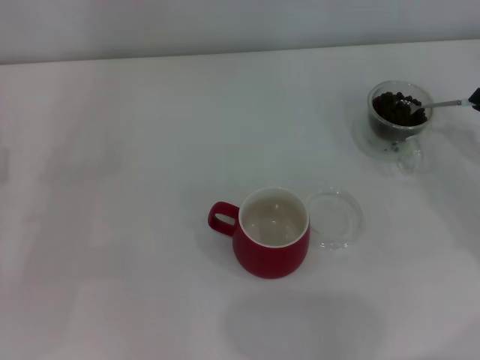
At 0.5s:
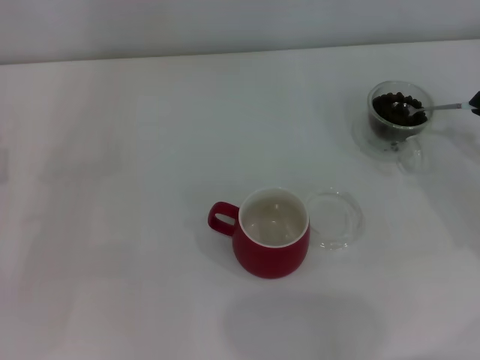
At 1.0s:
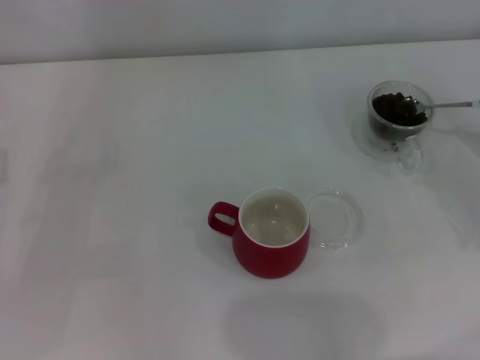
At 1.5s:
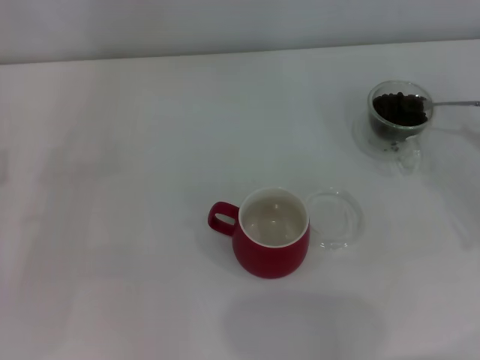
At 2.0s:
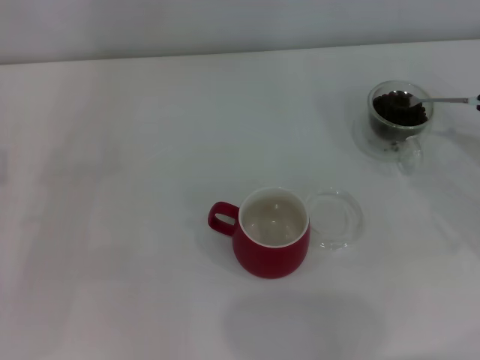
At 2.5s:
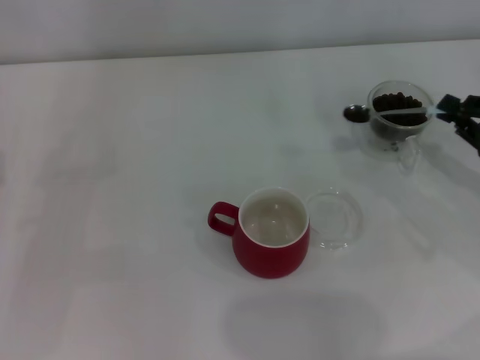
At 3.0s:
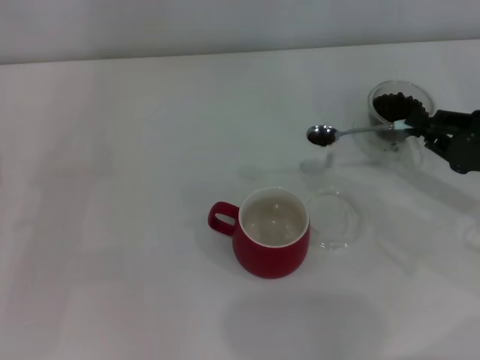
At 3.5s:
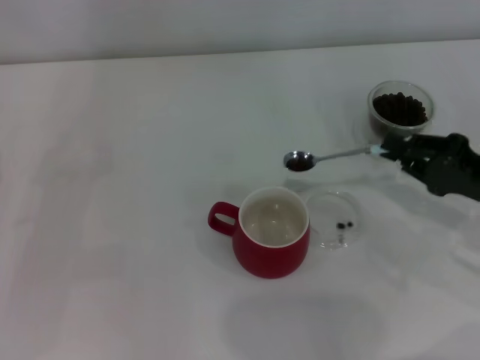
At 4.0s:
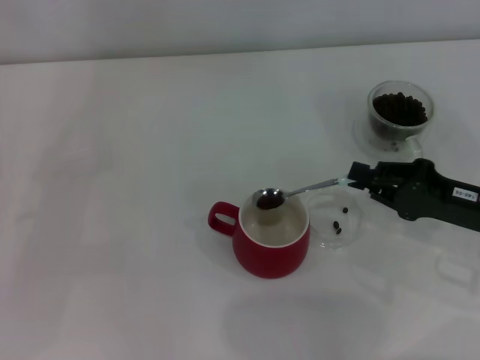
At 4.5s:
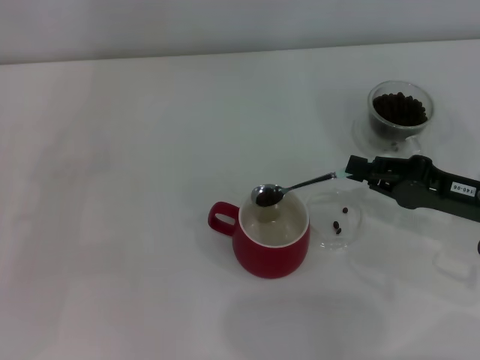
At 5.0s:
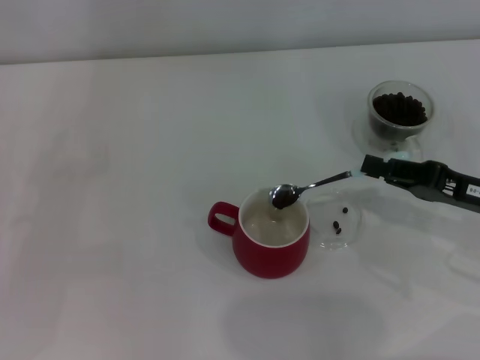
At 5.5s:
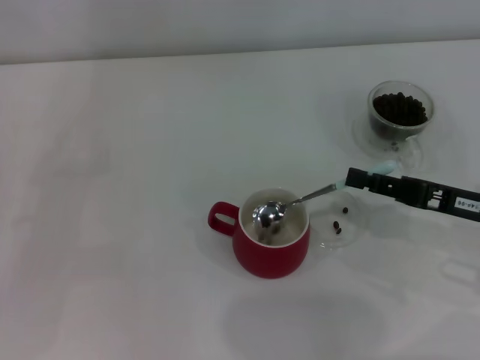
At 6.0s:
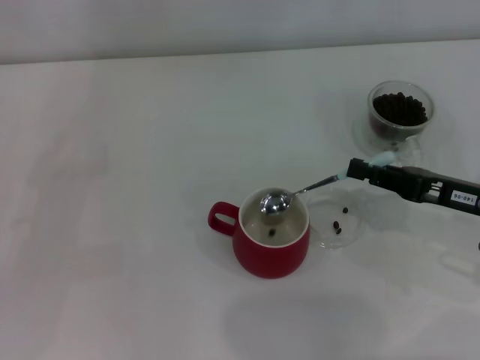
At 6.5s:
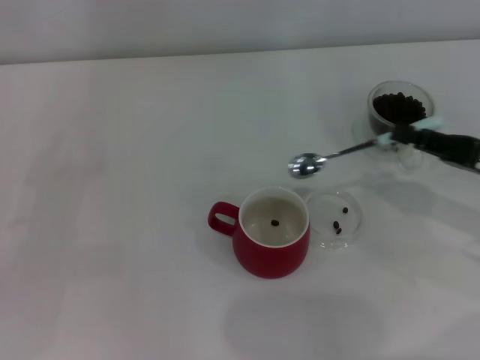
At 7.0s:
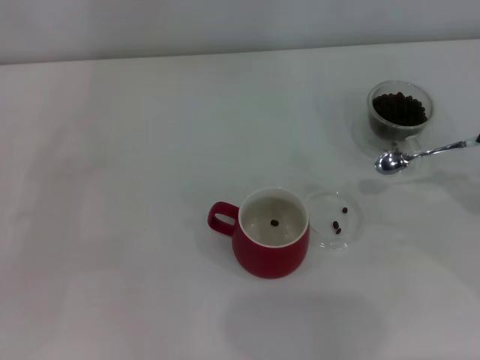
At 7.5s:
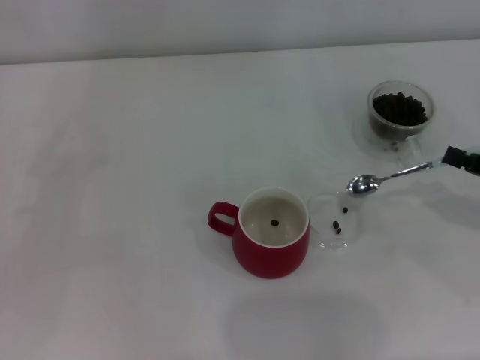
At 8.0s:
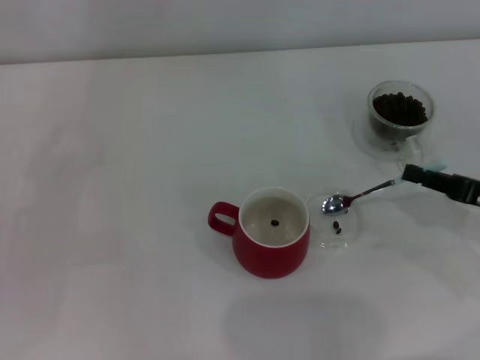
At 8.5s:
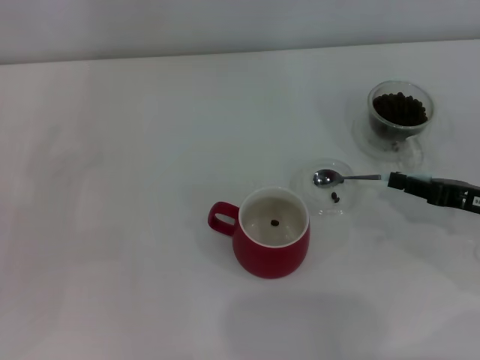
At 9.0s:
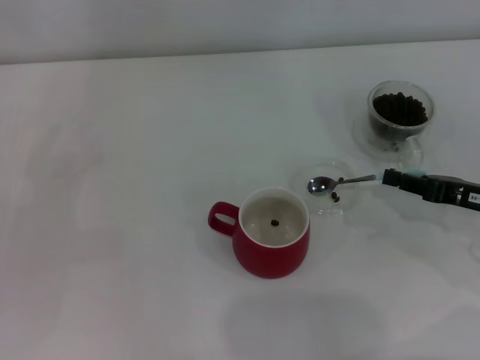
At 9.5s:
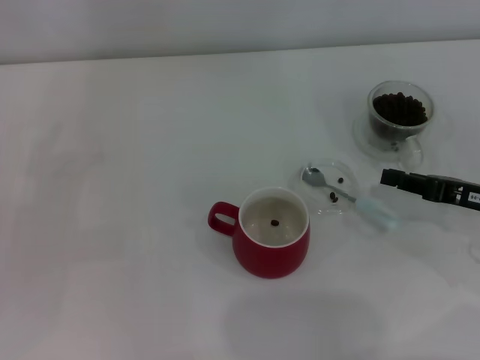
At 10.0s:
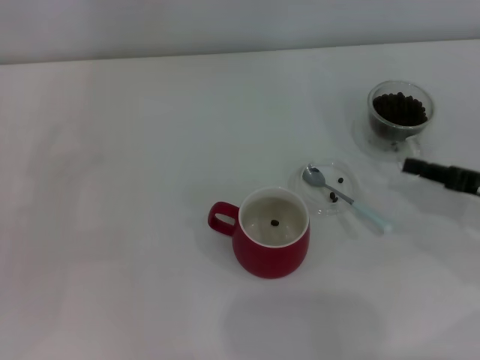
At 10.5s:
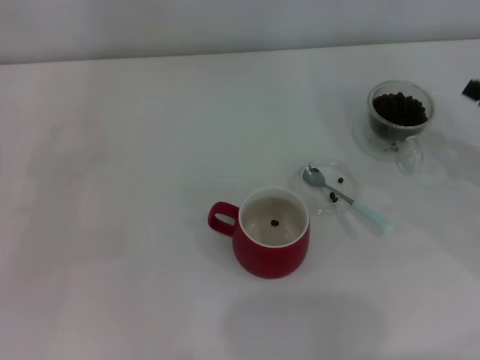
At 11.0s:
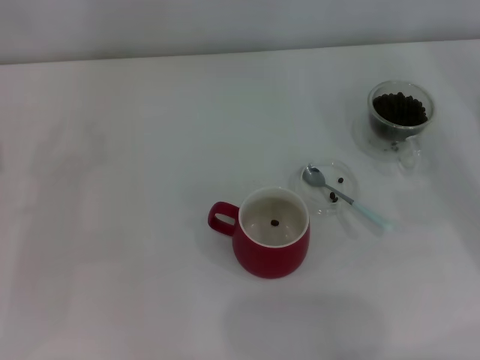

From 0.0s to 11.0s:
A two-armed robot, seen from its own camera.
Task of the whole recording: Use a blue spoon to take out the coffee beans from the glass and pour them into the red cup.
Step, from 0.0s to 5.5s: Scoop a spoonful of beans into the cup with the right gripper.
Step, from 6.0s to 9.5s: Place the spoon back in its original place with the right gripper.
From 2.0s to 3.5s: The right gripper shifts some 10 cm to the left.
From 5.5s to 7.5s: The right gripper goes about 10 cm to the right.
From 7.5s to 9.0s: The right gripper moves approximately 5 cm.
From 9.0s to 11.0s: The right gripper heads to the right, covering approximately 5 cm.

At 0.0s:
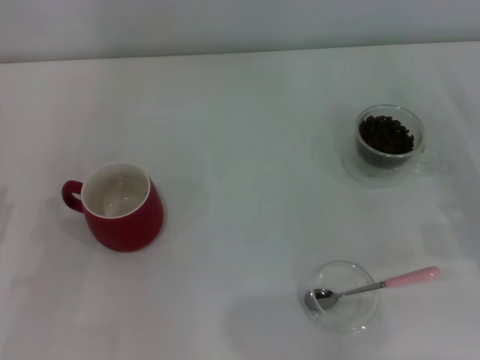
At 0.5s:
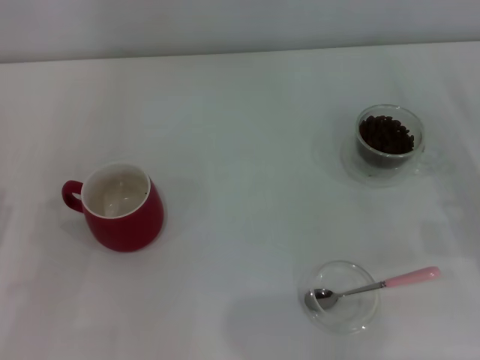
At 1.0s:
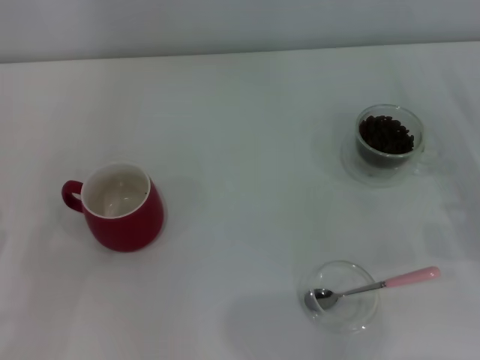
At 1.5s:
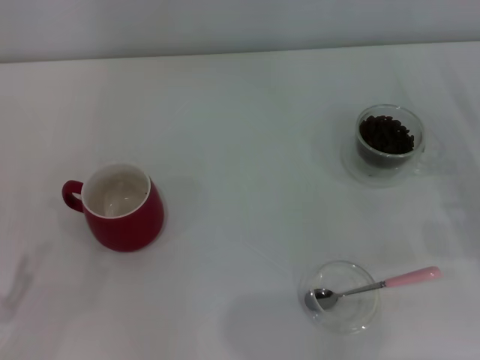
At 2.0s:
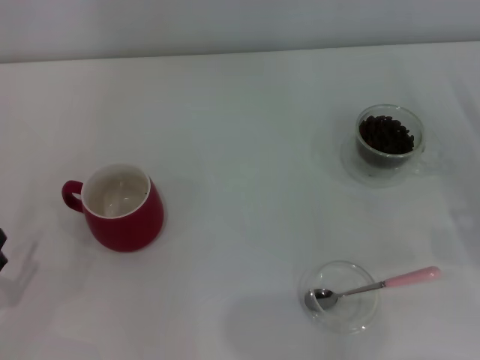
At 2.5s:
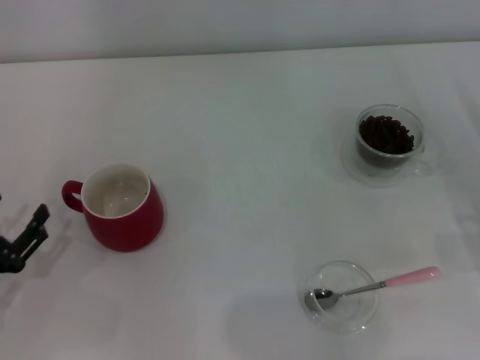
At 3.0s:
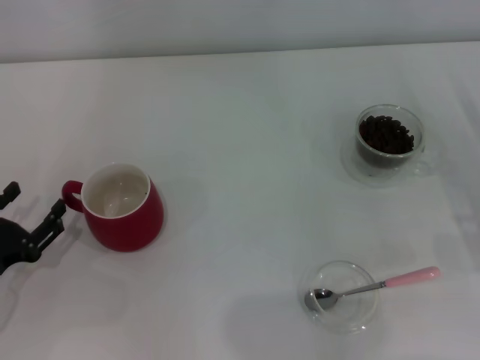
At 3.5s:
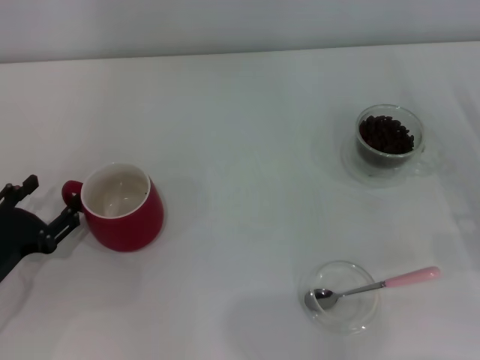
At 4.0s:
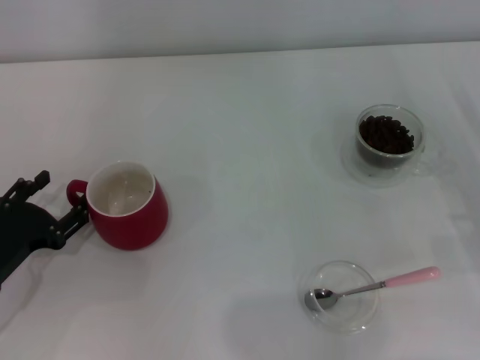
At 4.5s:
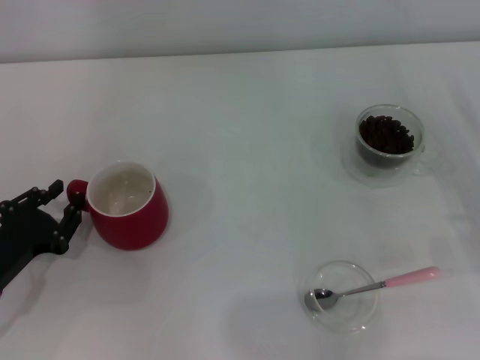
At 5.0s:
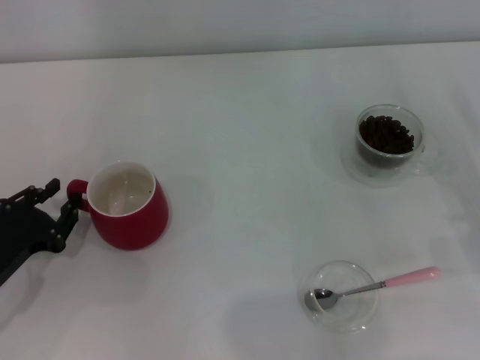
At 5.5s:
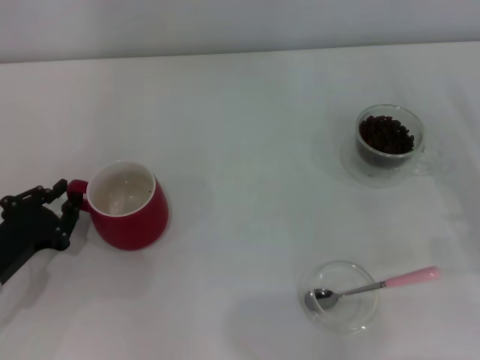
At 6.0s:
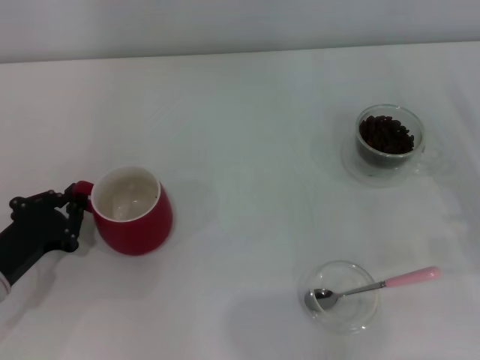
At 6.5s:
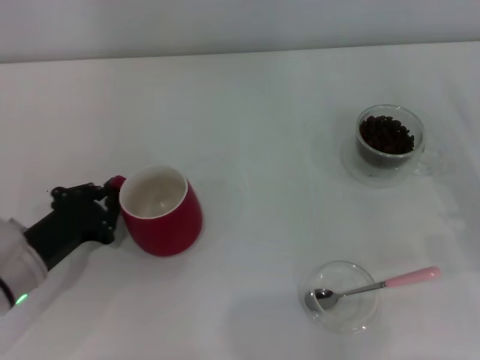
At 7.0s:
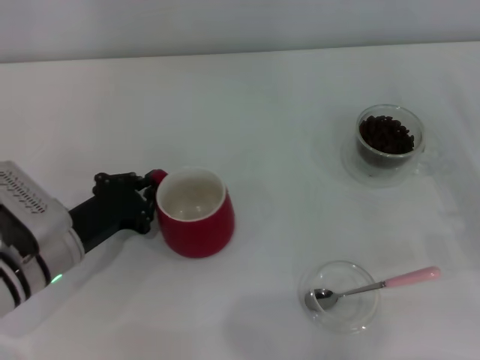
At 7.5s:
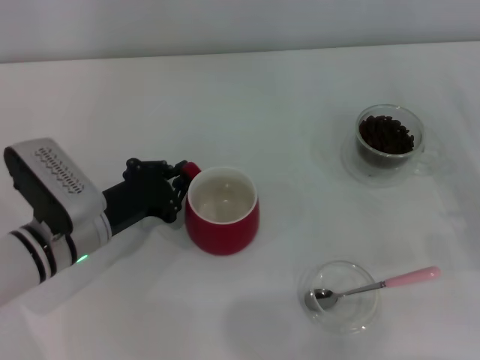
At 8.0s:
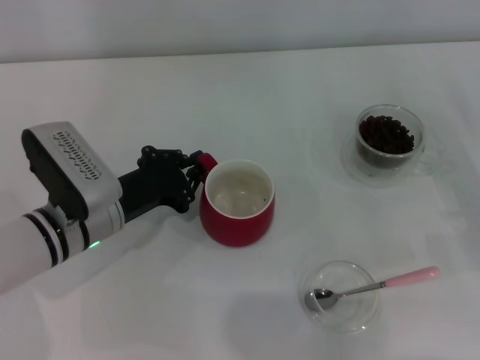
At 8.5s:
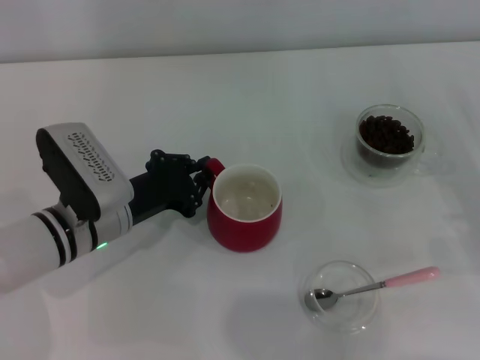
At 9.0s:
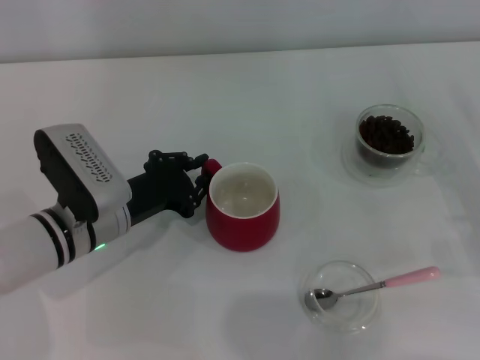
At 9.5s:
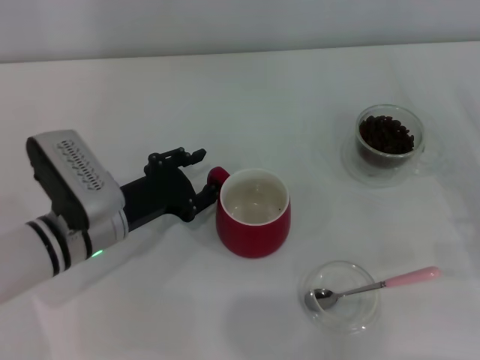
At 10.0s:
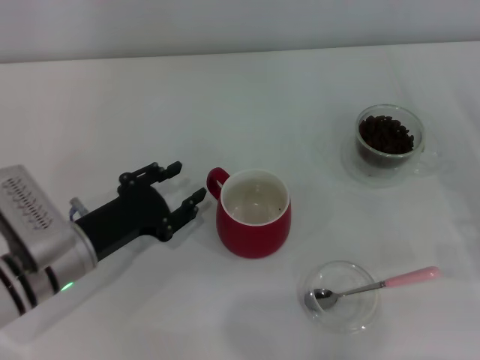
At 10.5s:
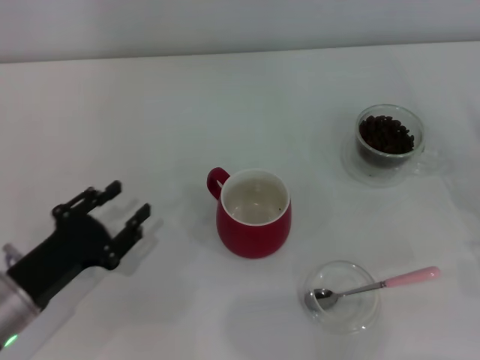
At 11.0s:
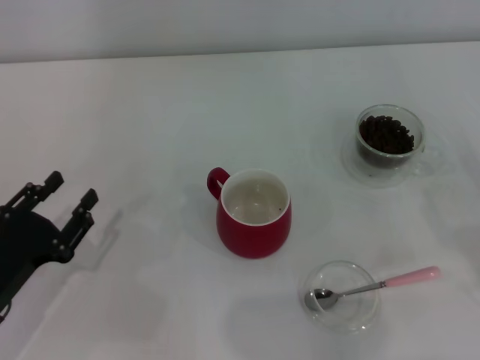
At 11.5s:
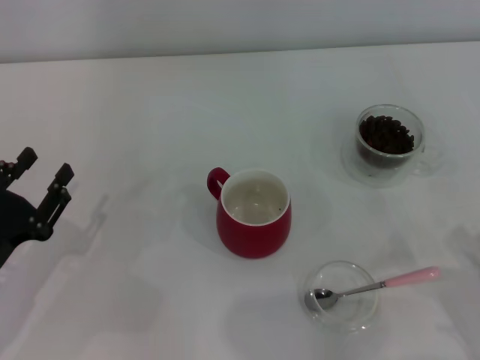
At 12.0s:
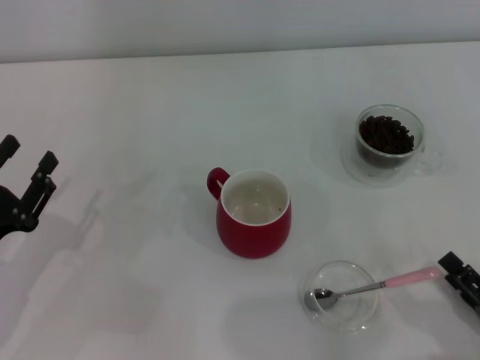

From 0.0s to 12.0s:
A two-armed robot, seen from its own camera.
Task of the whole recording: Use a pink spoon to take out the coffee beans from the glass and pour them into the red cup.
Step, from 0.0s to 10.0s: Move the cup to the center of view with the left gripper.
From 2.0s to 4.0s: The left gripper is displaced forward by approximately 10 cm.
From 4.0s to 6.0s: The left gripper closes up.
From 6.0s to 8.0s: The left gripper travels to the right and forward by roughly 15 cm.
From 8.0s to 10.0s: The left gripper opens.
From 10.0s to 12.0s: The right gripper shifts about 15 cm backward and to the left. The left gripper moves to the left and backward, roughly 10 cm.

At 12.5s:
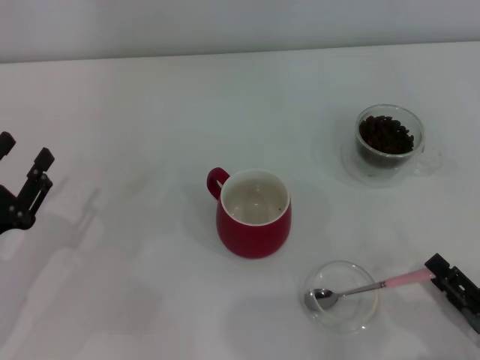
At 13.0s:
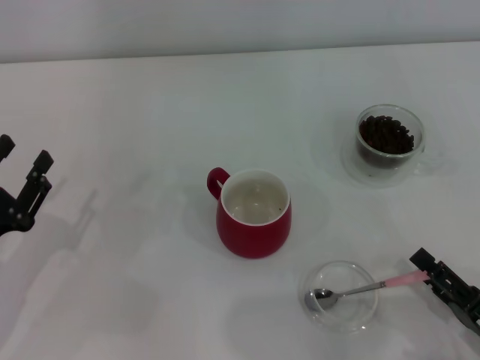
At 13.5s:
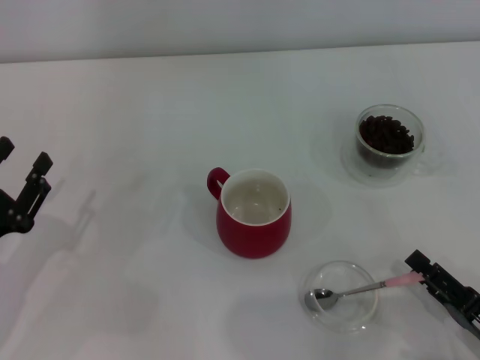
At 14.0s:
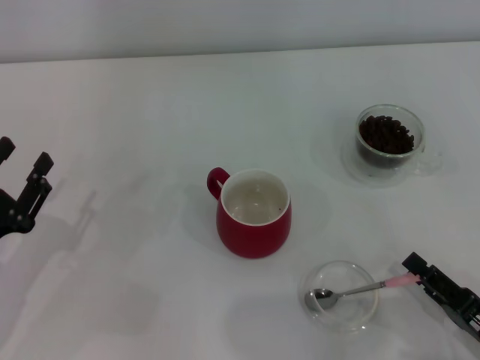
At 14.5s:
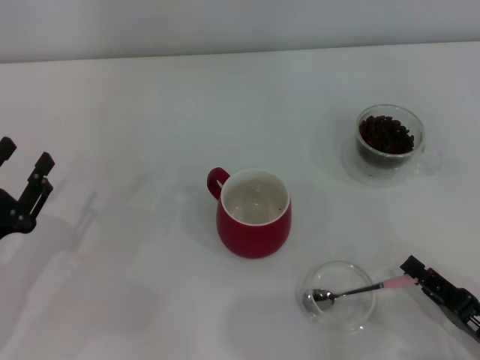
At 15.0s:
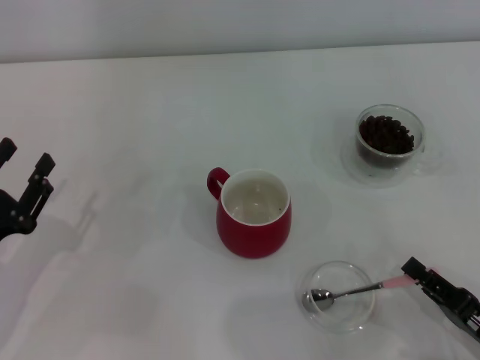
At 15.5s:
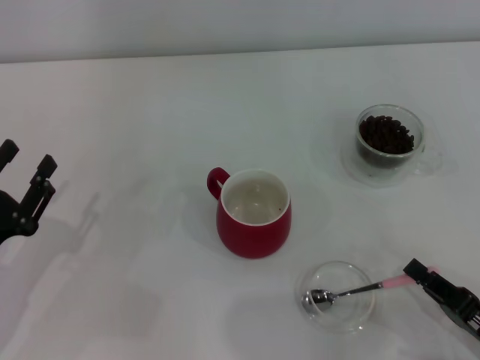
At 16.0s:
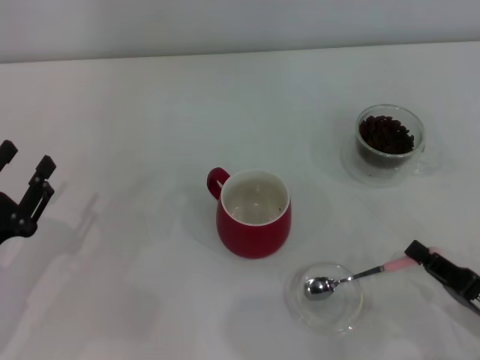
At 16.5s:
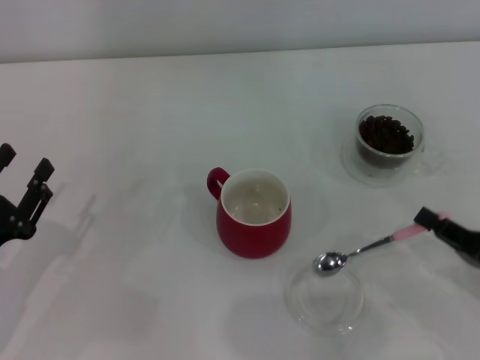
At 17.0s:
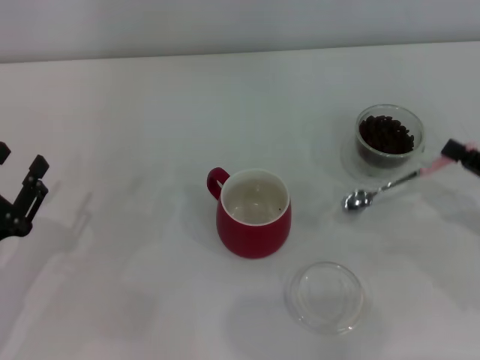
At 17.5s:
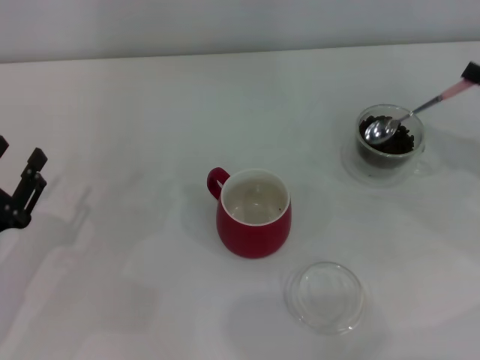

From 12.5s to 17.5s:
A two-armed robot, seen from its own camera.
Task of the whole recording: Use a pink spoon to take out the coffee beans from the glass and pour them into the red cup.
Step, from 12.5s to 16.0s: Pick up the spoon with the right gripper.
From 12.5s to 15.0s: The right gripper closes its fingers.
From 15.0s to 17.5s: The right gripper heads forward, upward and to the right, covering about 25 cm.
